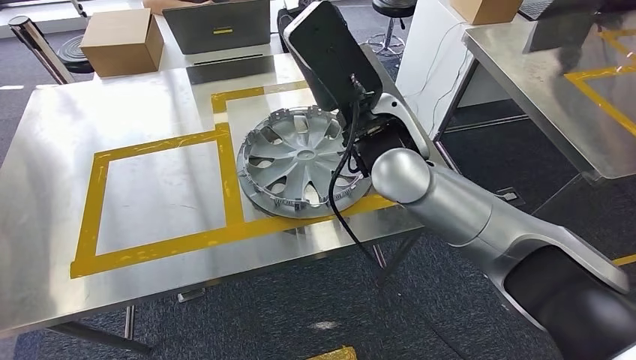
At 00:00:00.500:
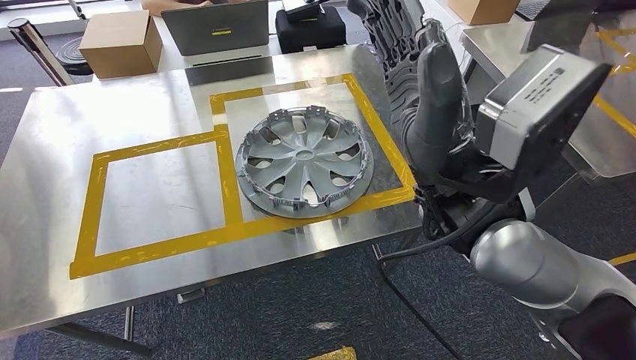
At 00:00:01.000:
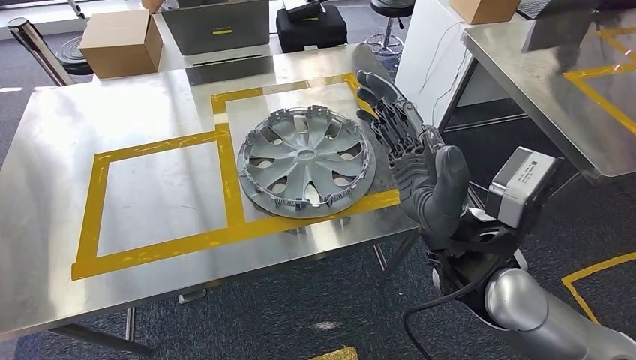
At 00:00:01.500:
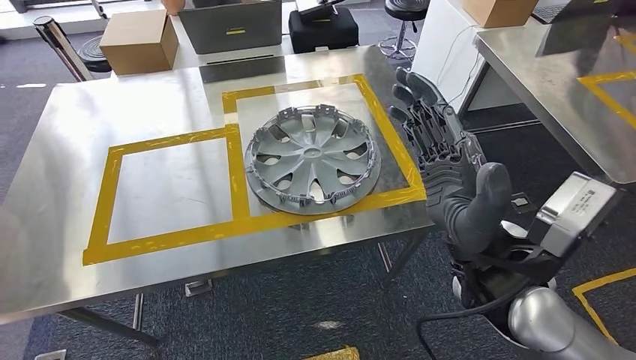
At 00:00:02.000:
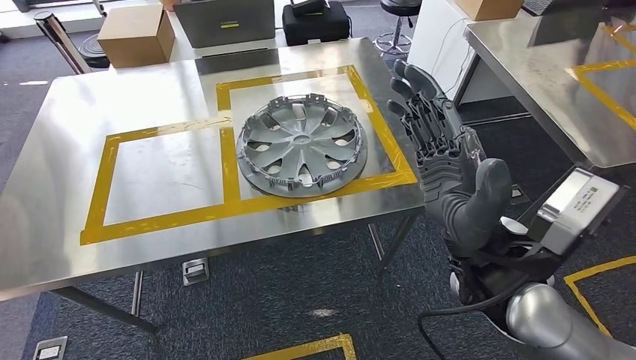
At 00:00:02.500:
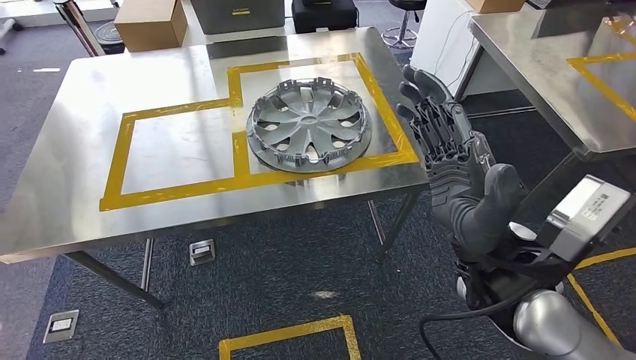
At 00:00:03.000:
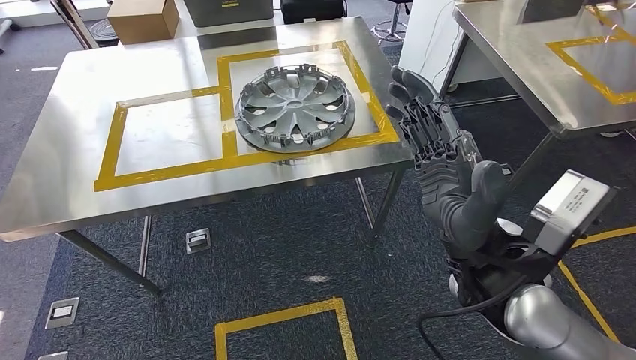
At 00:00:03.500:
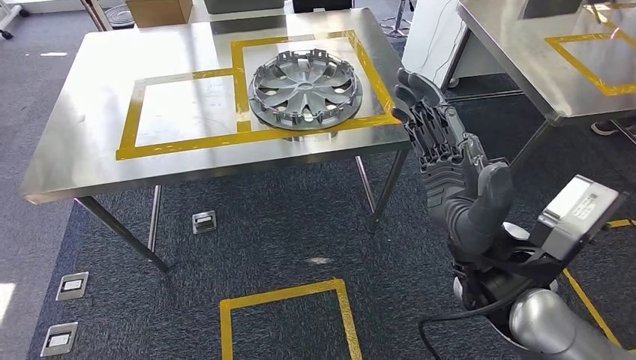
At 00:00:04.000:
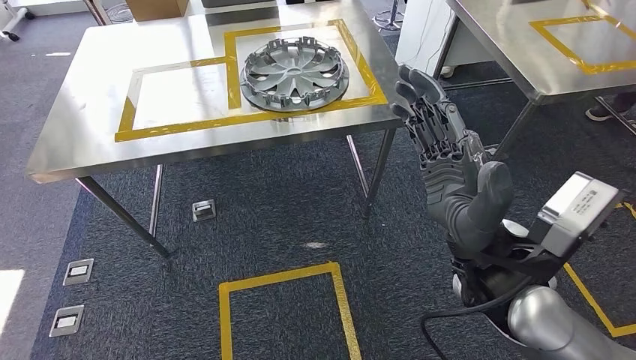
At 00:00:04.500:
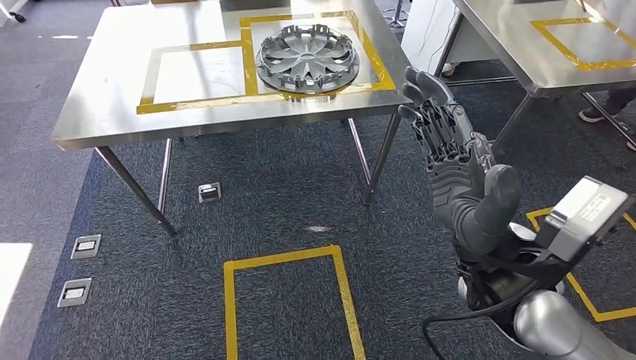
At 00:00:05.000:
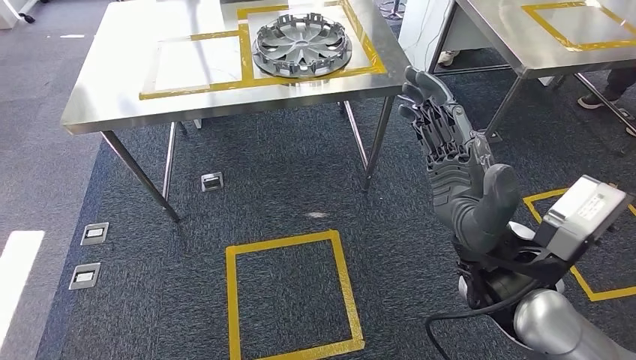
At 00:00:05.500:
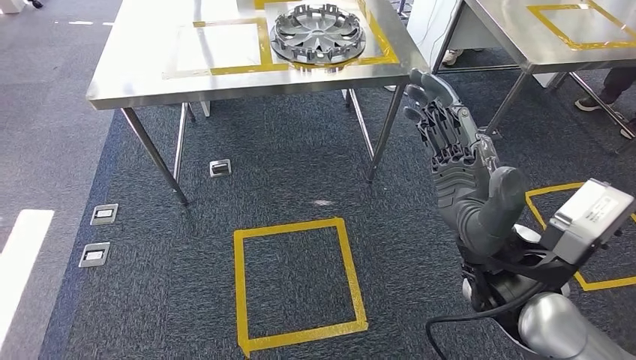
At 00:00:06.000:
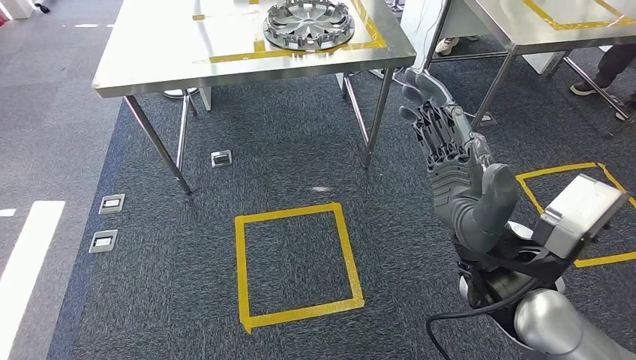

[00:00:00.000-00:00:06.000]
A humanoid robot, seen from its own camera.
Step, 00:00:01.500 to 00:00:06.000: Move to the initial position of the shelf.

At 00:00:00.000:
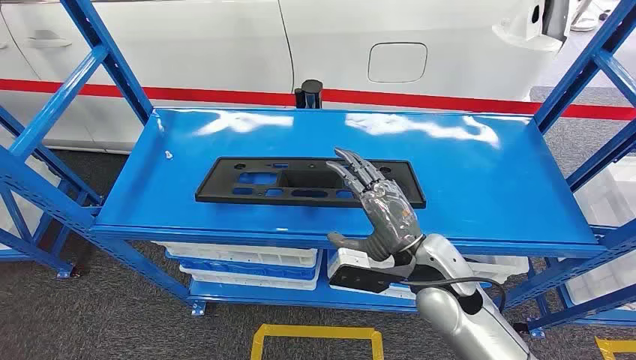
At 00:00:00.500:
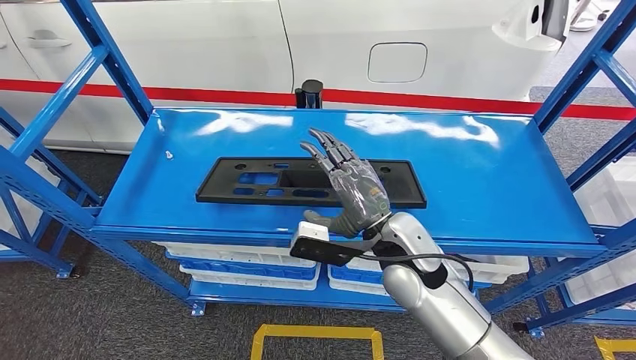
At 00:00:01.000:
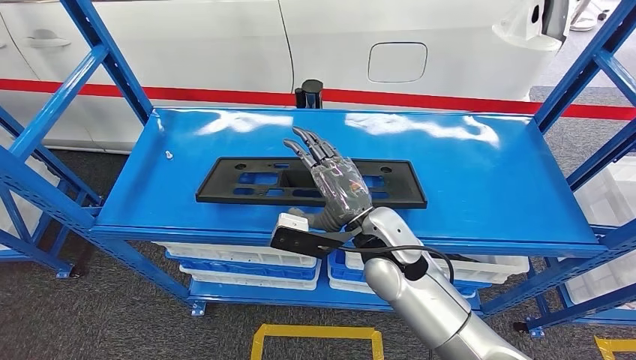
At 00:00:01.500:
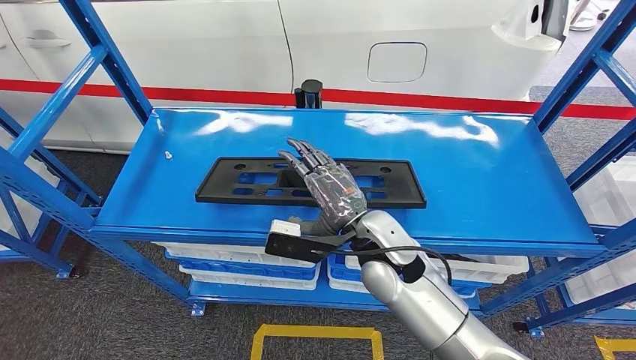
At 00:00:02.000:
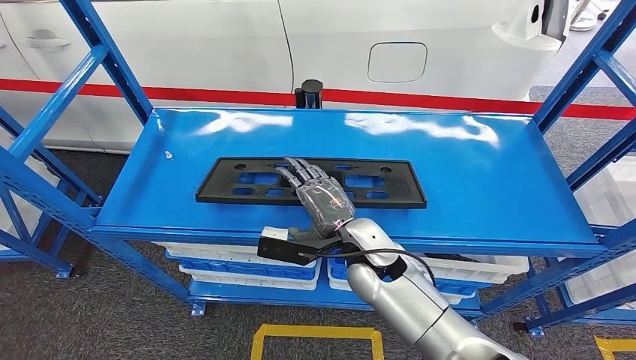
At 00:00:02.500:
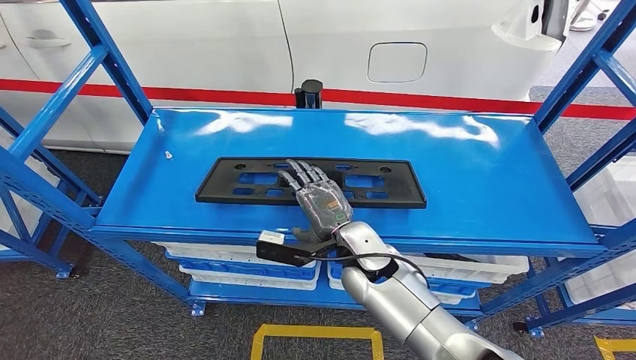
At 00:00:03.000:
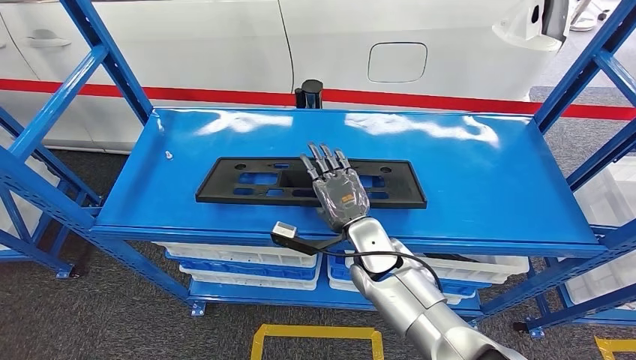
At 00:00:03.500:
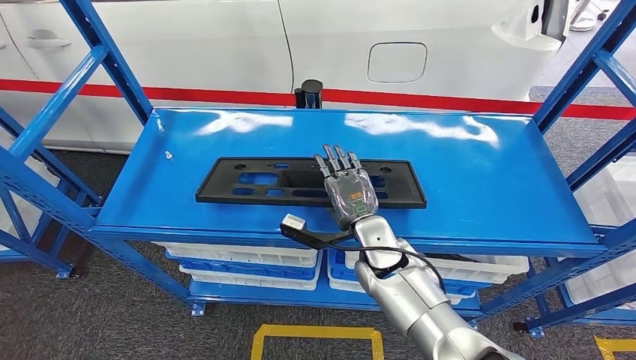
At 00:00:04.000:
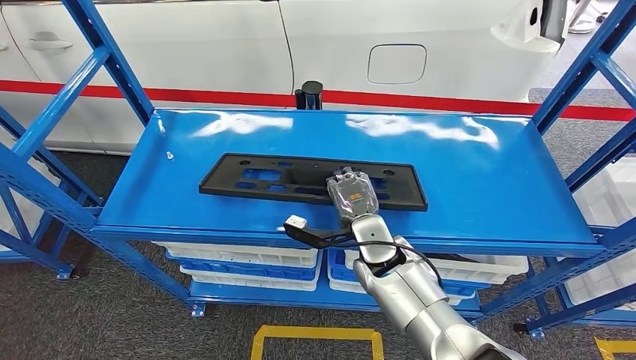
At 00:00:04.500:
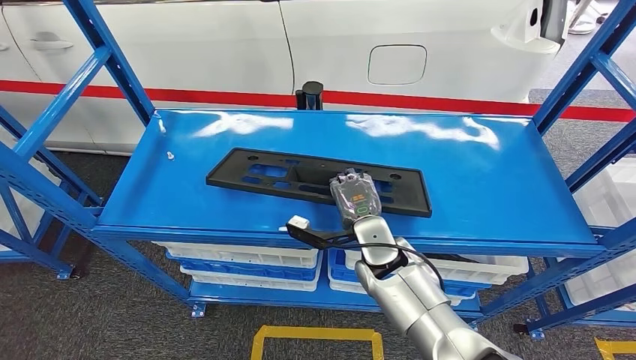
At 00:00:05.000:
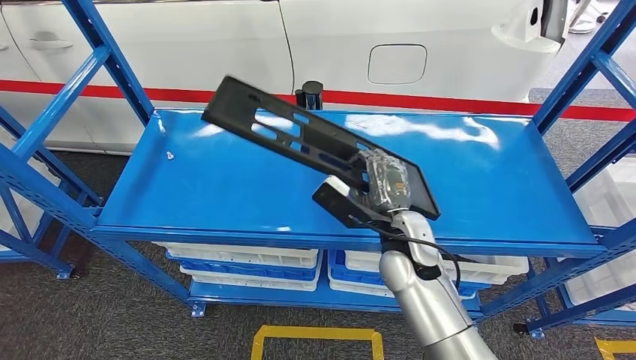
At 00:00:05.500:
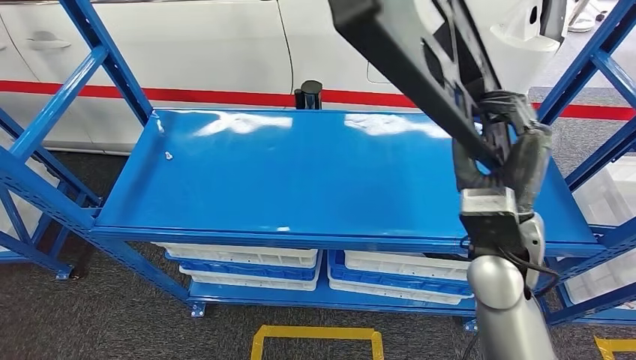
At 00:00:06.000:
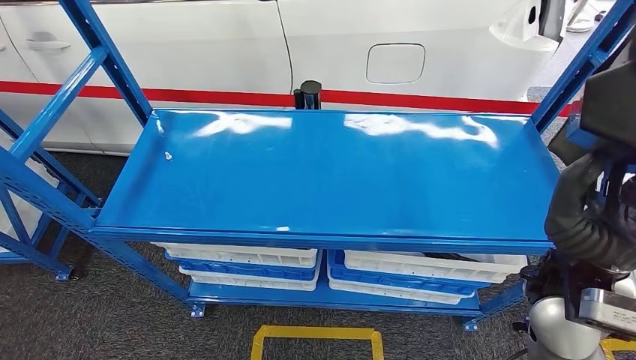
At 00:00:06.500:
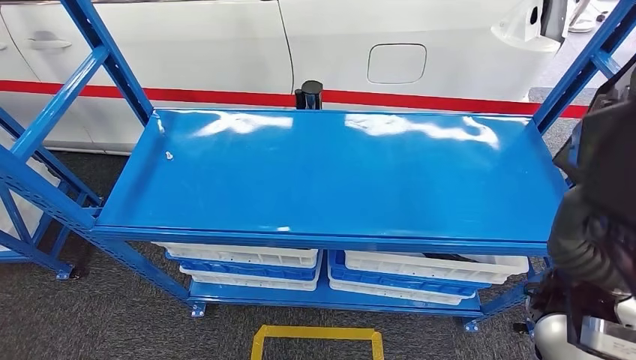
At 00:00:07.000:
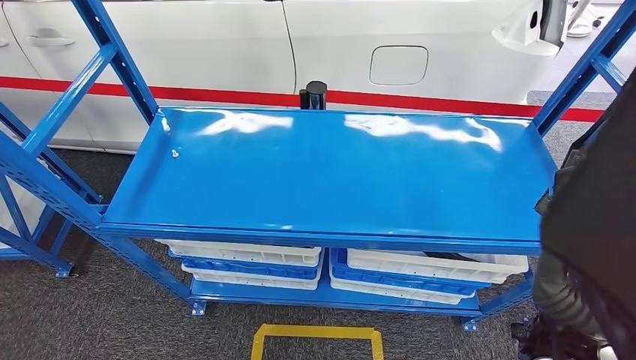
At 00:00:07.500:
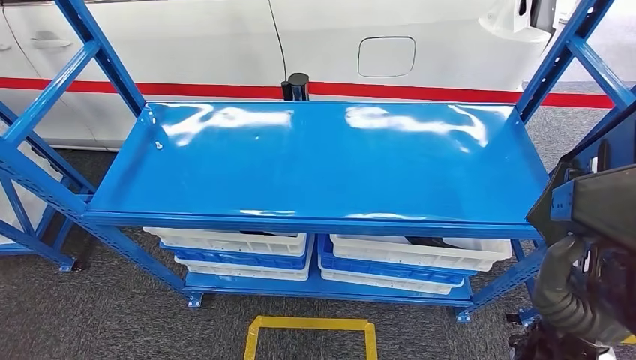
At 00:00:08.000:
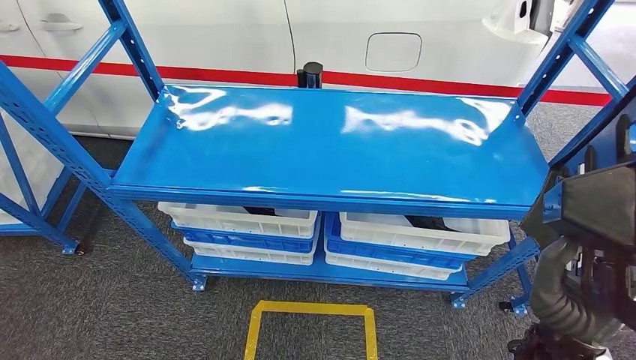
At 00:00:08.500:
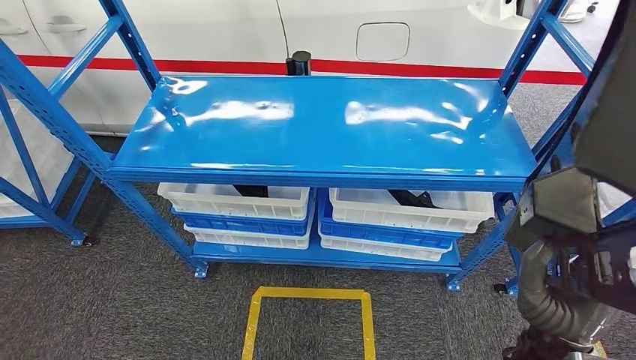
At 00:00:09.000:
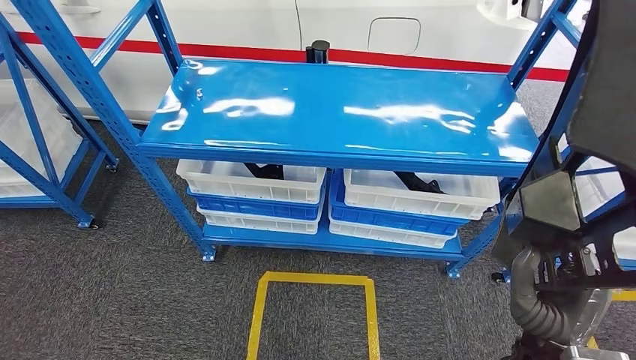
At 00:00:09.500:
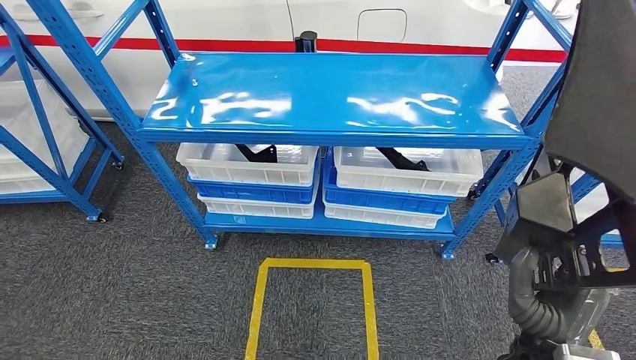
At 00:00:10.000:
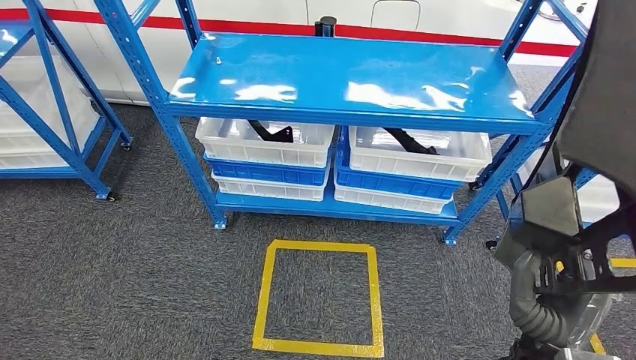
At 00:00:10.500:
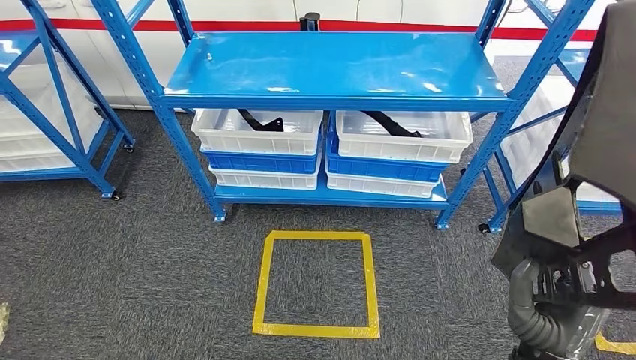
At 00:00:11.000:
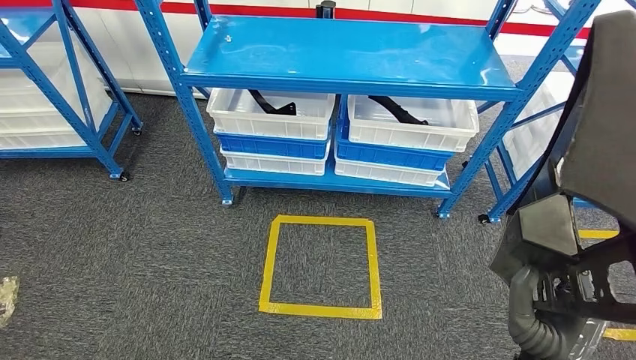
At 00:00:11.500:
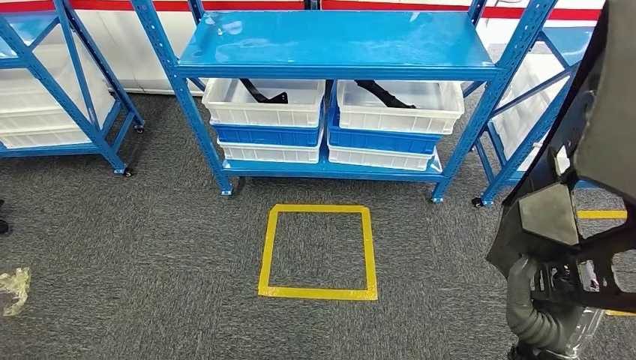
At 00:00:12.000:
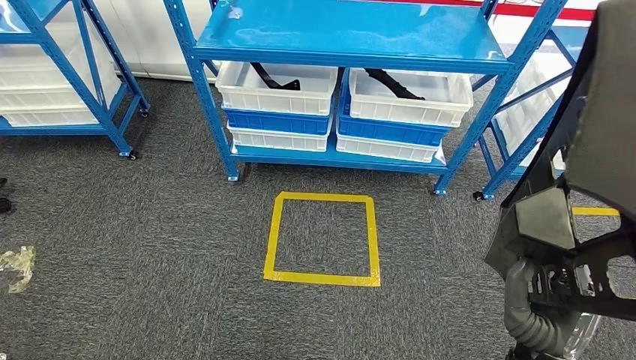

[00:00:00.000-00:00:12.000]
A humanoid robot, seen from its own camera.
Step, 00:00:00.000 to 00:00:07.000: Pick up the large material from the shelf.
00:00:02.000 to 00:00:04.000: The right hand changes place by approximately 5 cm.

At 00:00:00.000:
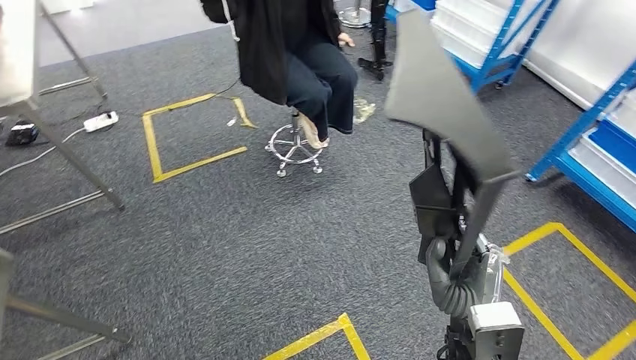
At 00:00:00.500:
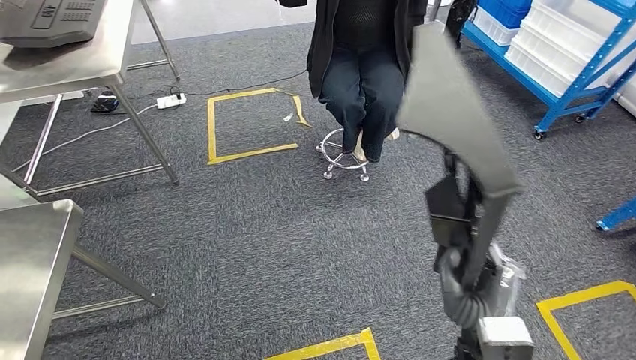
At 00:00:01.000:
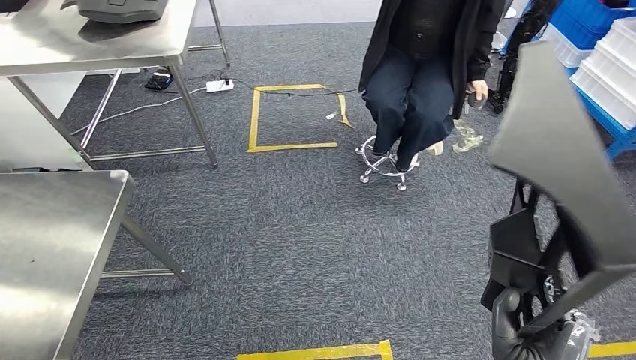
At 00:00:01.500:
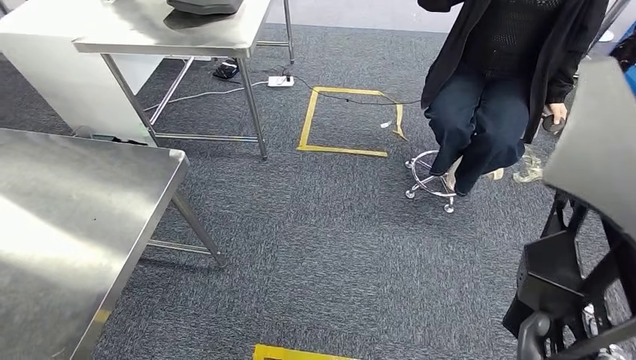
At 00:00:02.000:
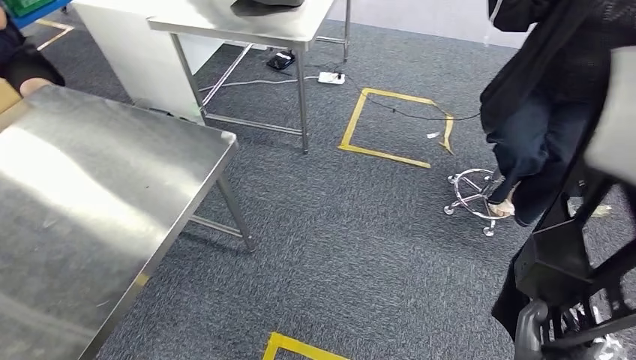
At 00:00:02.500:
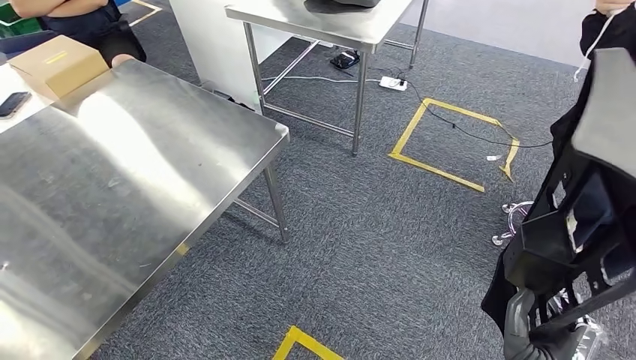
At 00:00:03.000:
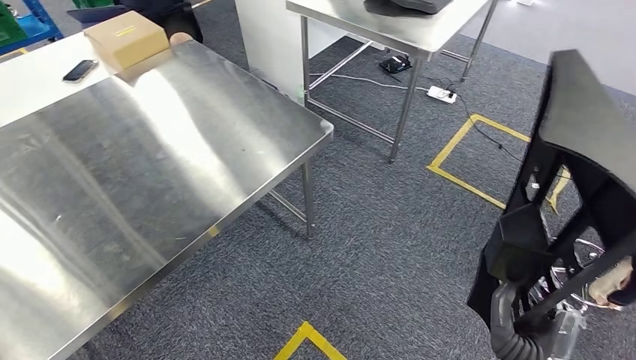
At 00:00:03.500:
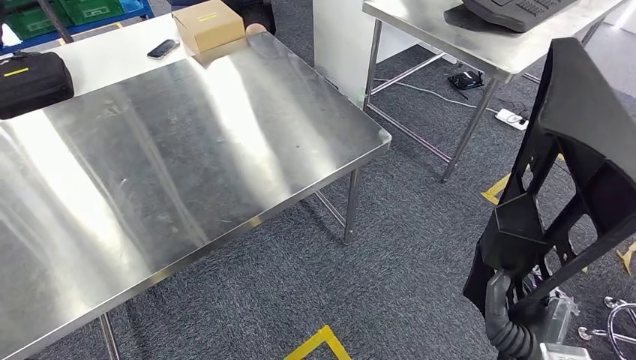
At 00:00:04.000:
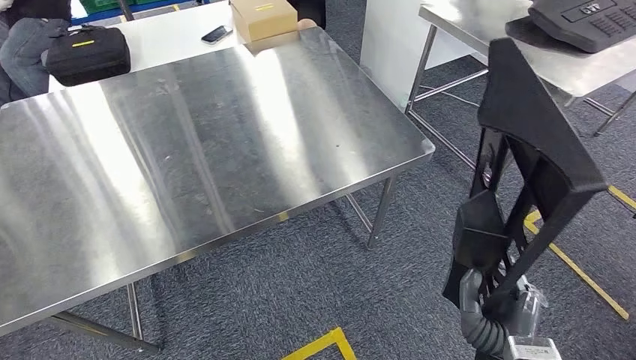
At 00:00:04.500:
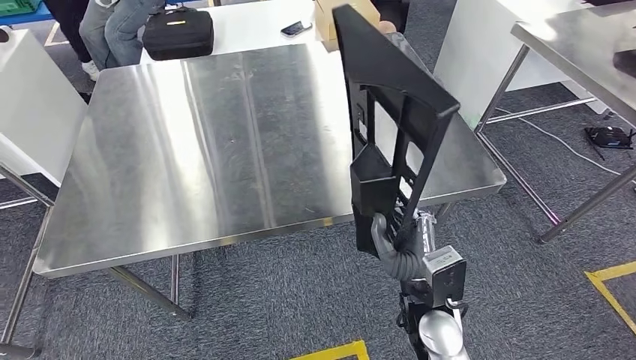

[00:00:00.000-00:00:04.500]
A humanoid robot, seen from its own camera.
Step, 00:00:00.000 to 00:00:03.000: Move the large material to the workbench.
